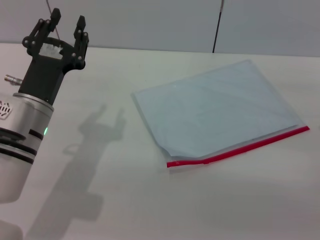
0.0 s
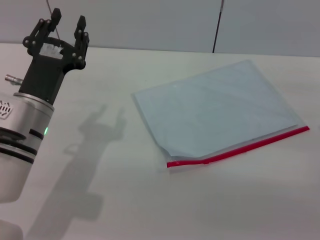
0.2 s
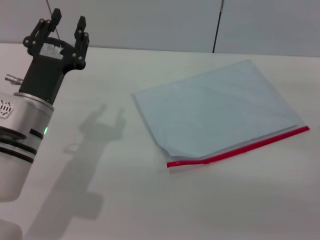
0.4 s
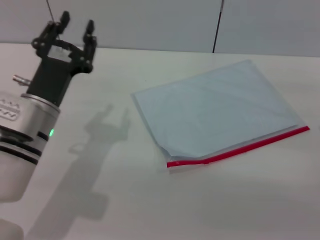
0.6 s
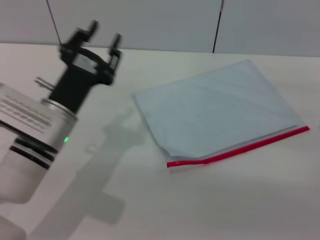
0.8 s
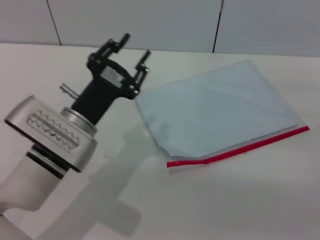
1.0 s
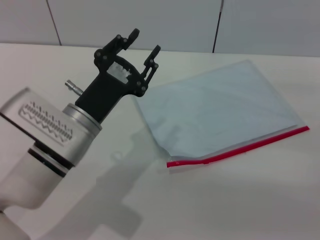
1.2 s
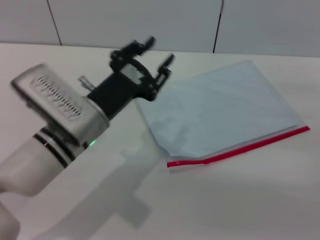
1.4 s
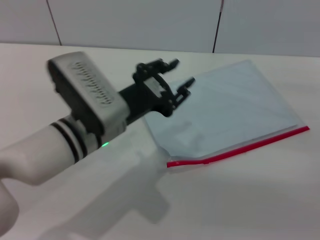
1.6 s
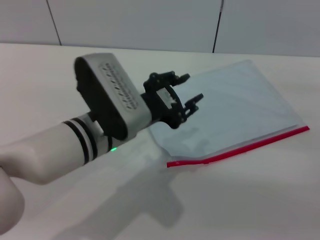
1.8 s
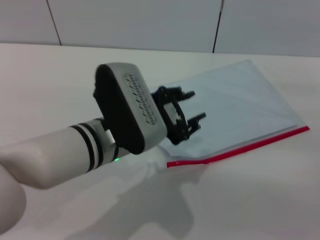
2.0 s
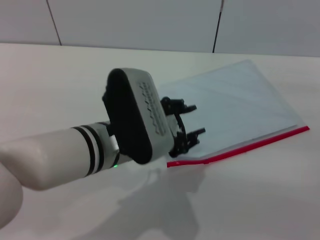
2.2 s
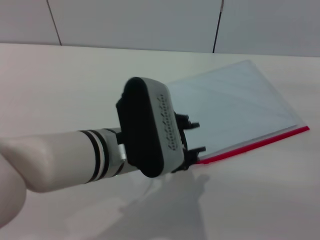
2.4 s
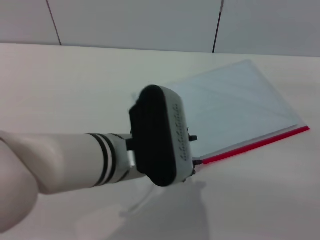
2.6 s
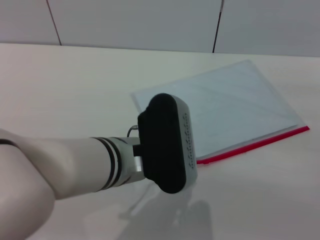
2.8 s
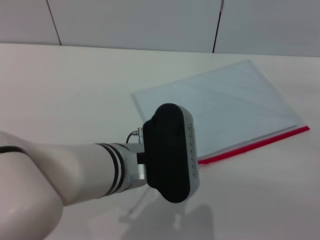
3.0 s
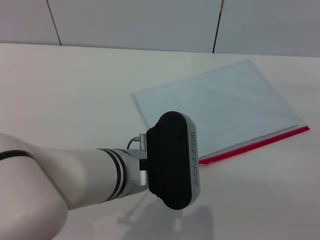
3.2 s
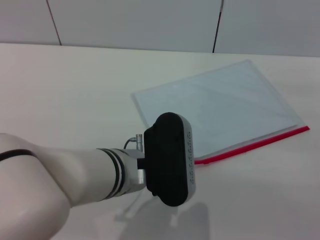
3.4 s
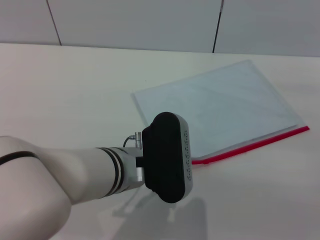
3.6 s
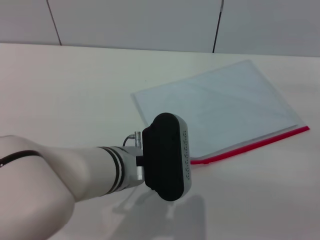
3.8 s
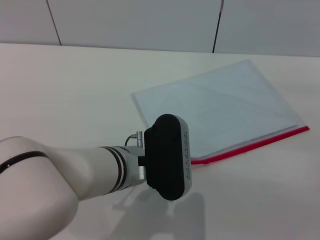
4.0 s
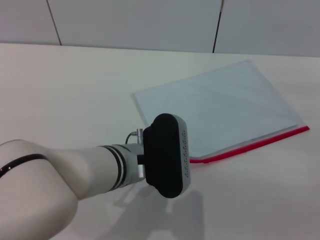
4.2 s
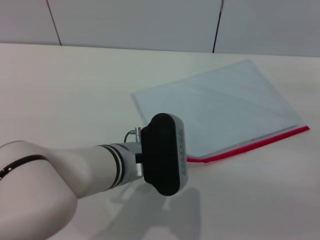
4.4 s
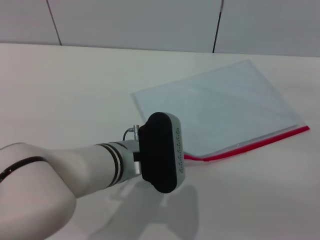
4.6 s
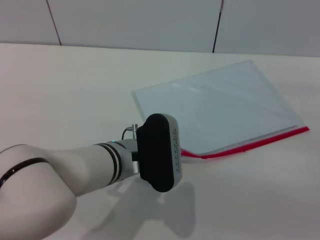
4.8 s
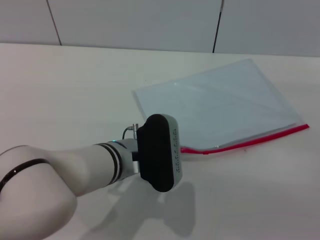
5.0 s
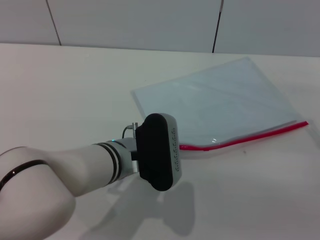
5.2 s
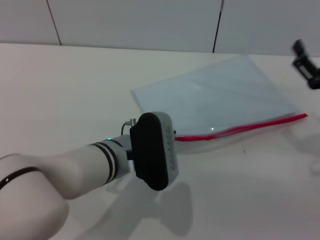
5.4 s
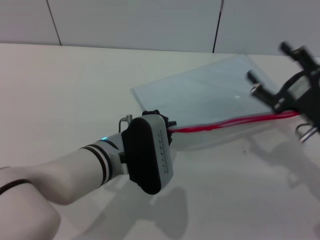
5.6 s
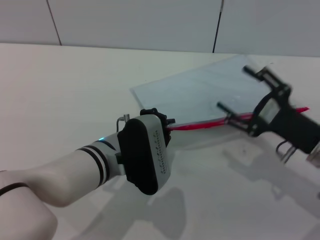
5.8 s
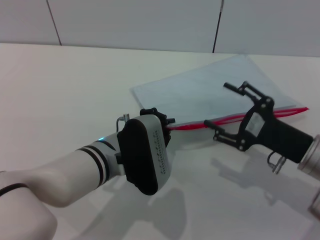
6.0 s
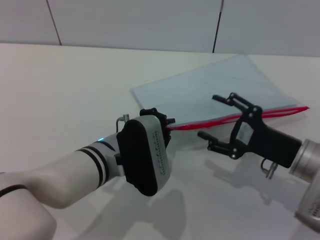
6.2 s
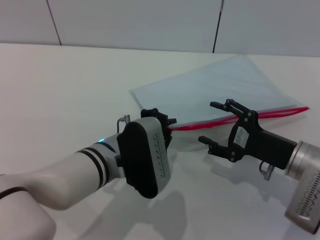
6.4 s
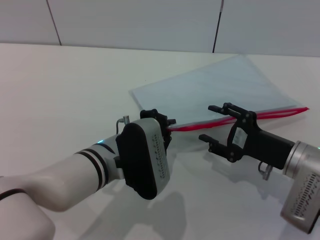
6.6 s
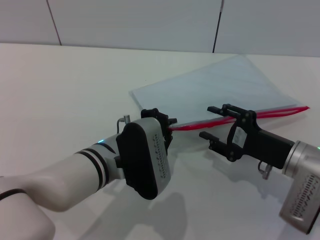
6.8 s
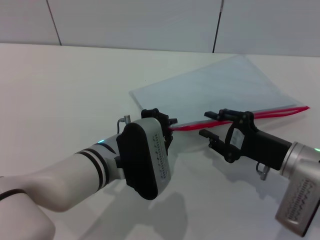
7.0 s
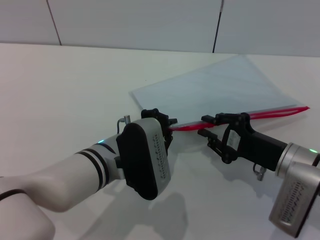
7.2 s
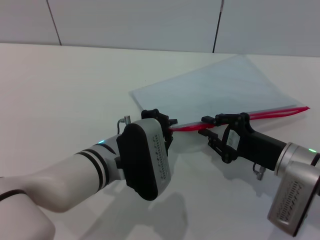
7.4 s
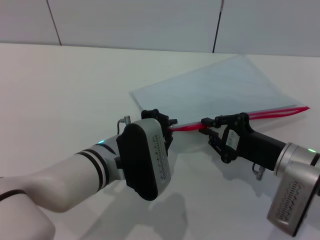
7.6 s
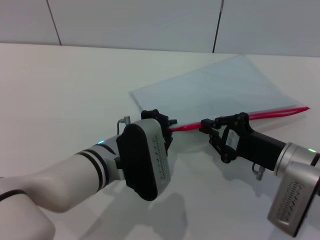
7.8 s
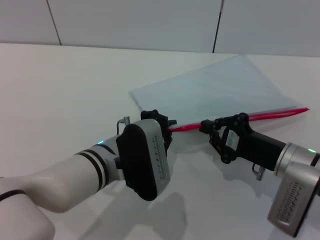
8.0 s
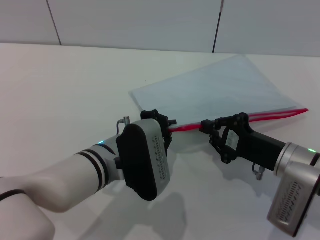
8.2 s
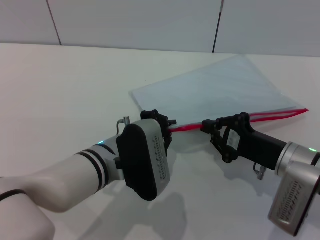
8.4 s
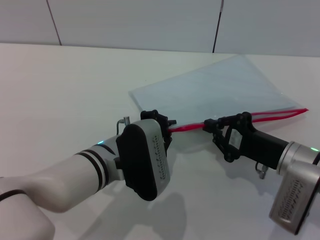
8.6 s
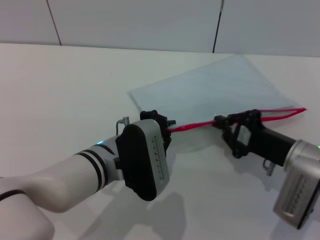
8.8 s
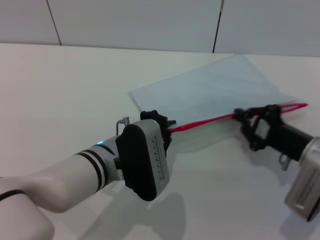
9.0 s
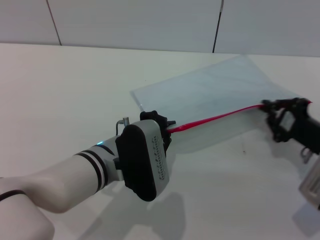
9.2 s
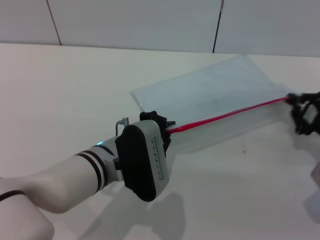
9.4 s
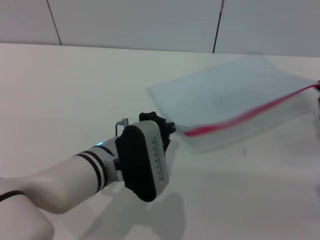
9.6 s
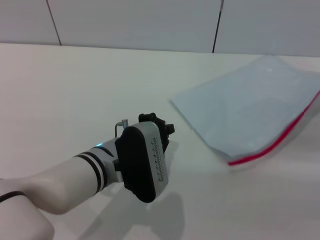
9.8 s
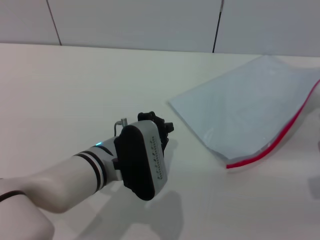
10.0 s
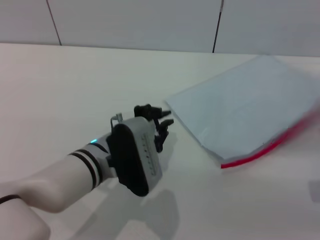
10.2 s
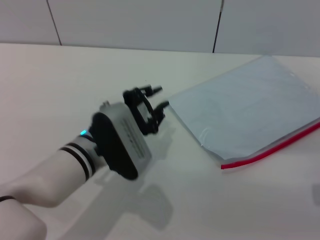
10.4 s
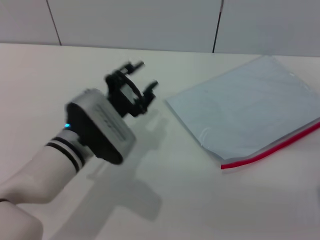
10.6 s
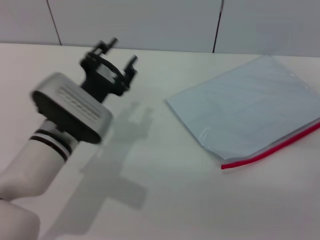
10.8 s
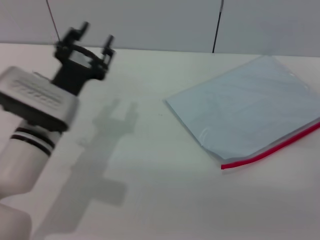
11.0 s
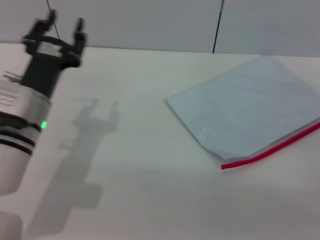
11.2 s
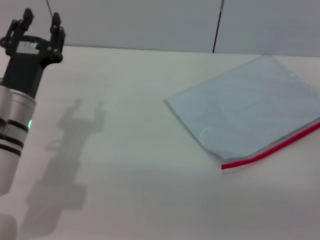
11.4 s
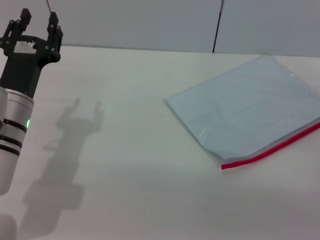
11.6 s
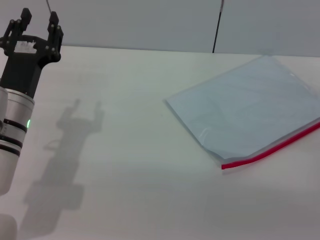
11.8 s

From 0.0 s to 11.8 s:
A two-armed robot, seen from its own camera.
Step, from 0.0 s to 6.0 s: Pick up the transparent plastic bag with the left gripper.
Step, from 6.2 s to 9.6 s: Pulling up the zipper on the transparent plastic bag with the right gripper to close it.
Step, from 9.8 s to 11.0 s: Place the transparent plastic bag.
From 0.0 s to 1.4 s: The left gripper is displaced to the right by approximately 5 cm.
From 1.4 s to 3.0 s: The left gripper is displaced to the right by some 5 cm.
From 3.0 s to 4.4 s: The left gripper moves about 5 cm.
From 4.4 s to 6.0 s: The right gripper shifts about 10 cm to the left. The left gripper closes its fingers.
From 6.0 s to 7.4 s: The right gripper closes its fingers.
From 7.4 s to 8.8 s: The grippers move only a little.
From 8.8 s to 10.4 s: The right gripper shifts some 10 cm to the right.
From 10.4 s to 11.8 s: The right gripper opens. The left gripper goes about 10 cm to the left, and opens.

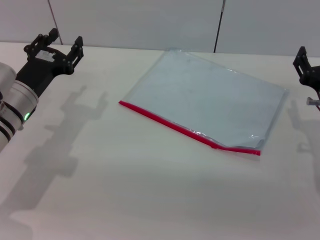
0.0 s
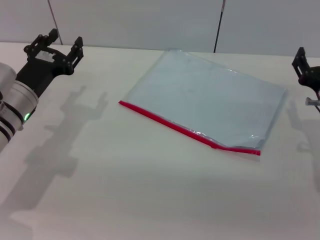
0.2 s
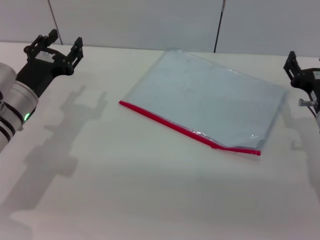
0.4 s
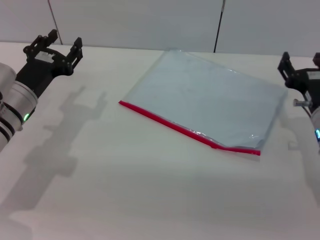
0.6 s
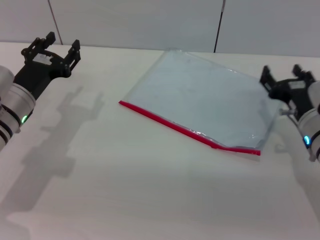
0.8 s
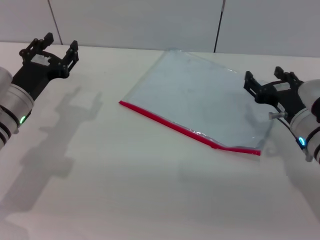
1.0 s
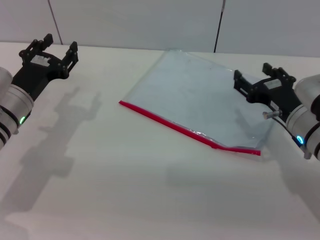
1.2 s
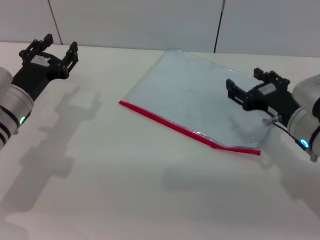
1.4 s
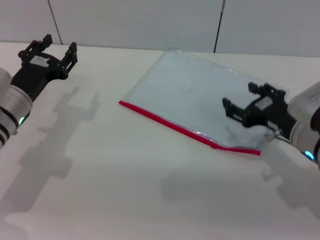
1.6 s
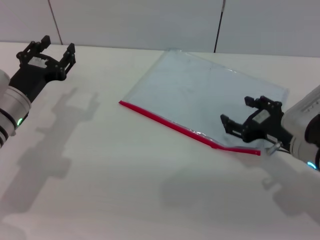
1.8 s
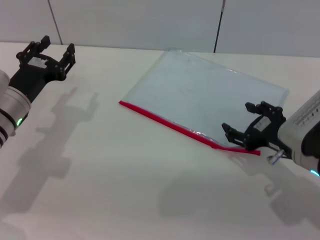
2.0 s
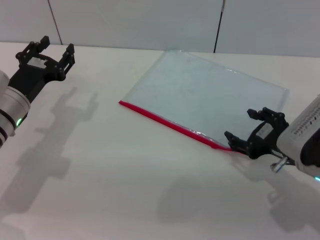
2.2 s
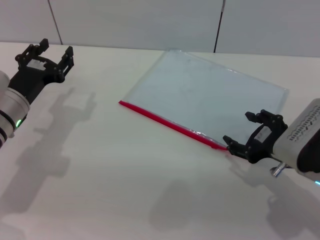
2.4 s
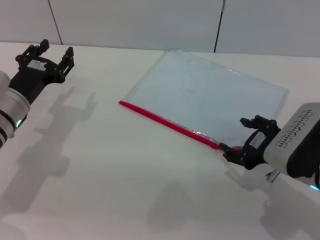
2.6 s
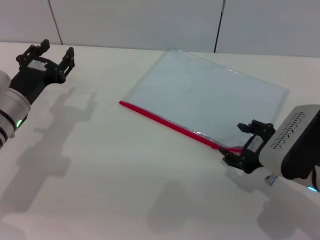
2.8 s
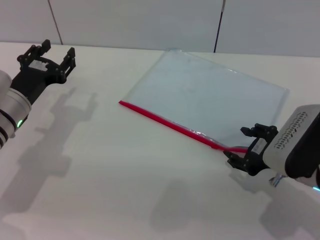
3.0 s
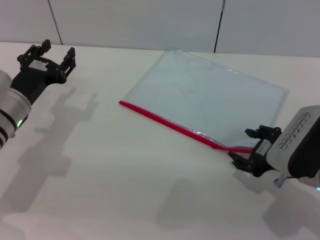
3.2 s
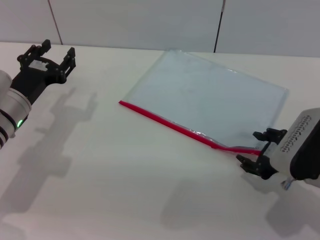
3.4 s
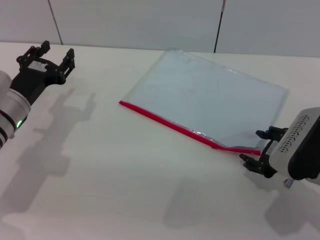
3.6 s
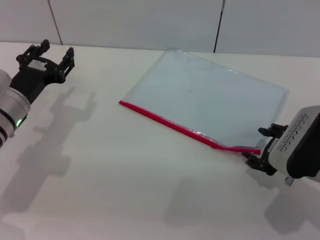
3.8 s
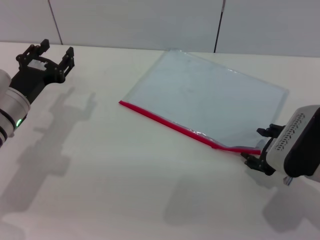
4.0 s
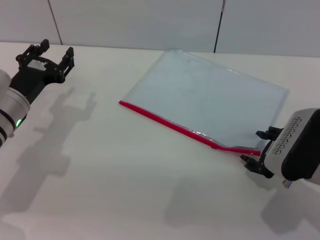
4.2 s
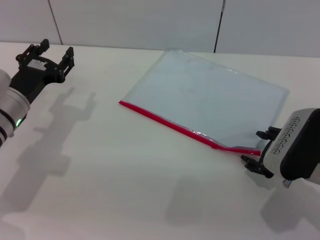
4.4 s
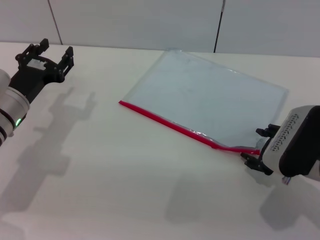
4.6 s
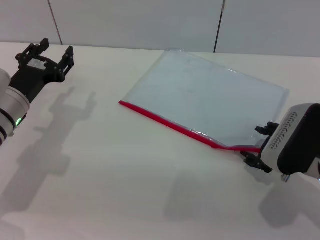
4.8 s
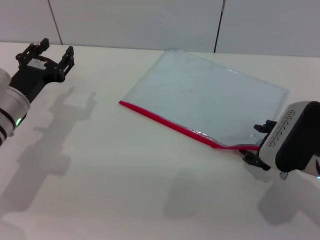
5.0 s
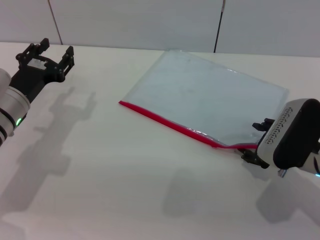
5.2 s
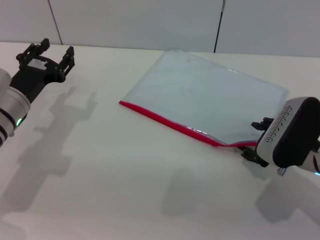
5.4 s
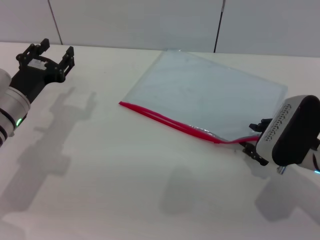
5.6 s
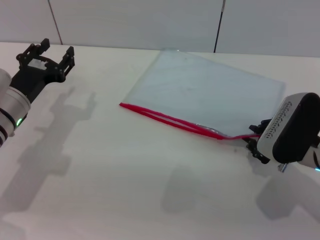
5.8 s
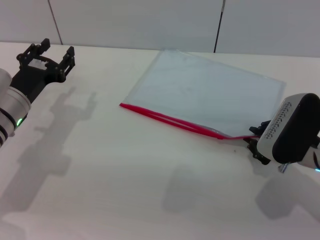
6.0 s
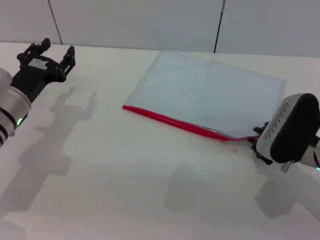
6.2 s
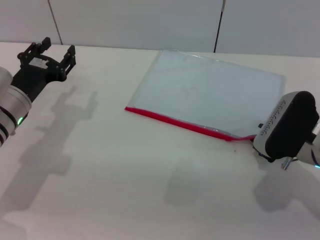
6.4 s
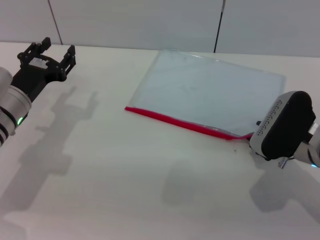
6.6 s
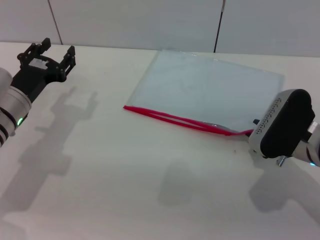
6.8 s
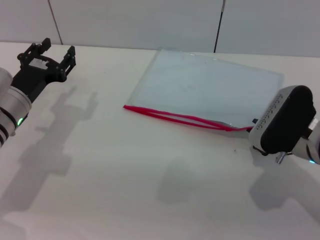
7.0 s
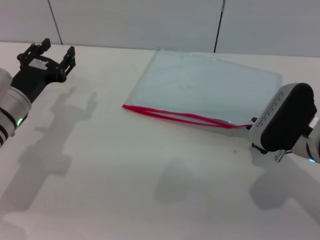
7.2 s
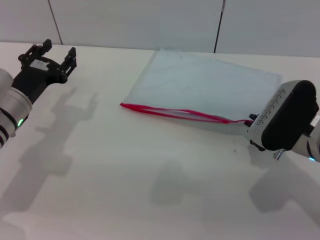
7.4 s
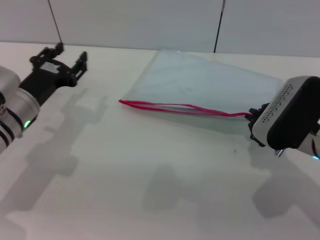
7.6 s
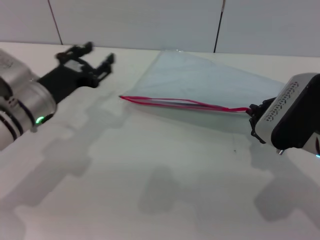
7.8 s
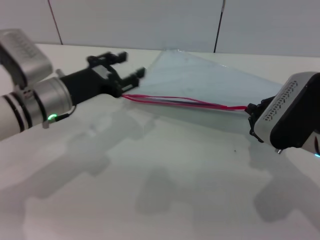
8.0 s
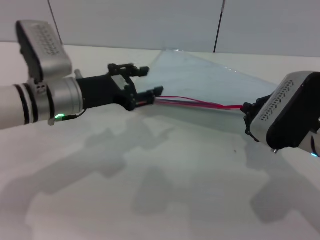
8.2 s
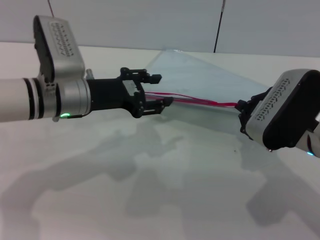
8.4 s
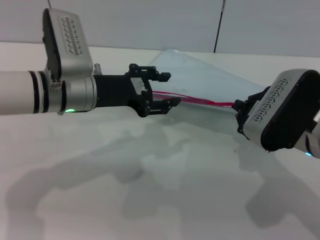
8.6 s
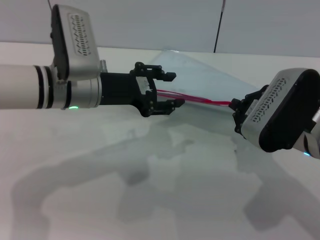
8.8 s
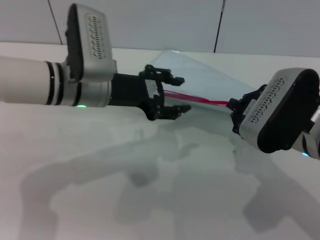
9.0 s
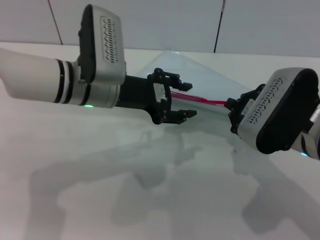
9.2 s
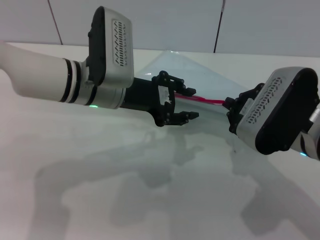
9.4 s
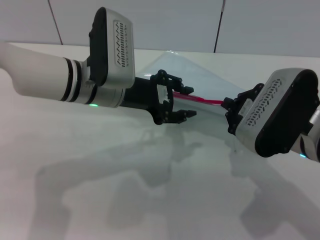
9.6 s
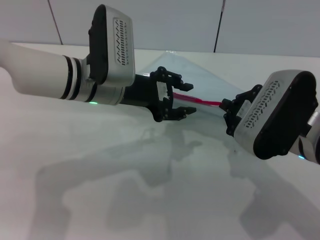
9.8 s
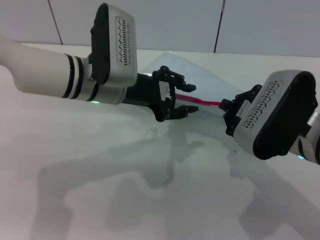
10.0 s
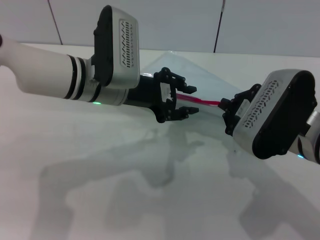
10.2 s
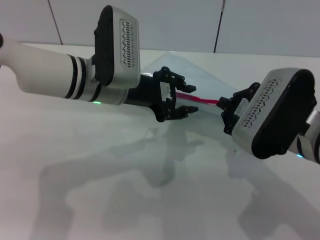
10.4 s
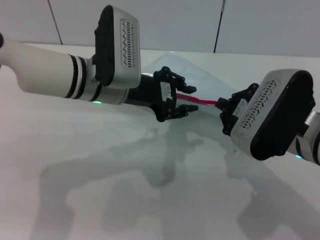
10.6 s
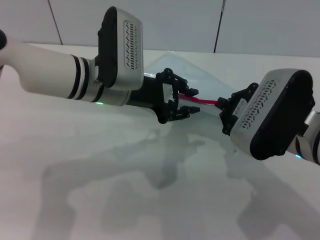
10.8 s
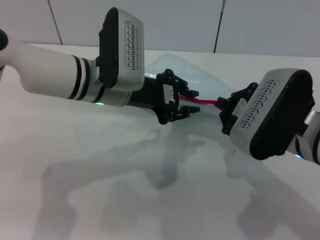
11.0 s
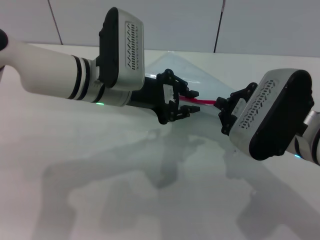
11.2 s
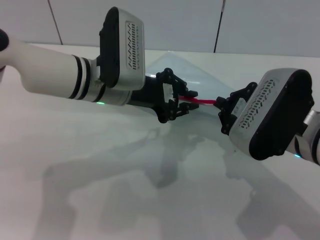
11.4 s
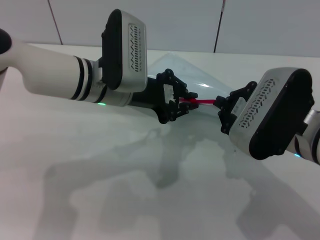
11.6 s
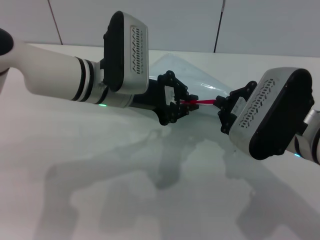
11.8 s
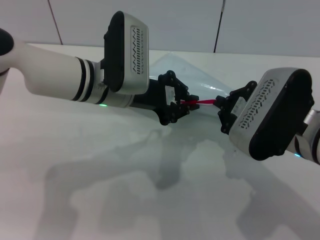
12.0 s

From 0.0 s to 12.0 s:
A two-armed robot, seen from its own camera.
Step, from 0.0 s to 8.2 s: Pick up the transparent plastic bag with the right gripper.
From 3.0 s to 4.4 s: The grippers move only a little.
From 4.4 s to 6.0 s: The right gripper closes.
From 6.0 s to 7.6 s: The grippers stay close to where they were, moving slightly.
From 7.6 s to 9.0 s: The left gripper shifts approximately 15 cm to the right and upward.
From 9.0 s to 10.4 s: The grippers move only a little.
From 10.4 s to 12.0 s: The left gripper closes its fingers.
